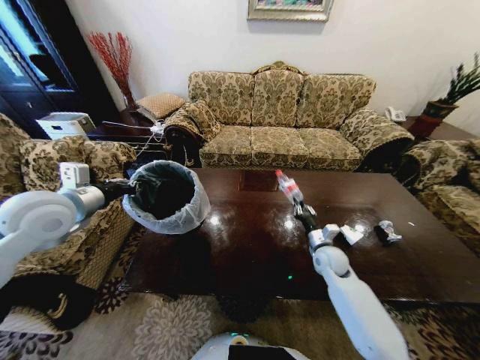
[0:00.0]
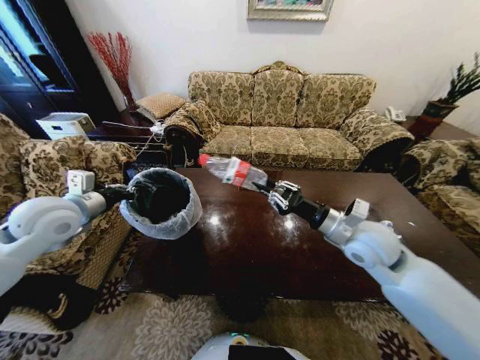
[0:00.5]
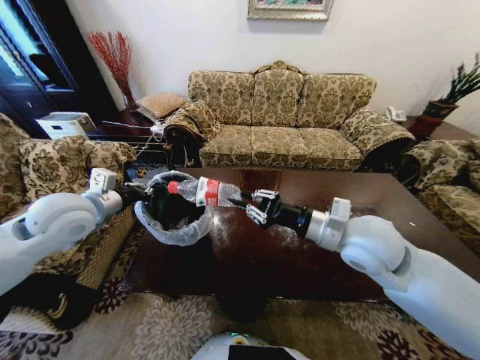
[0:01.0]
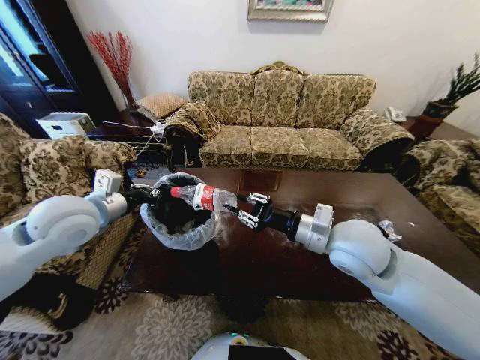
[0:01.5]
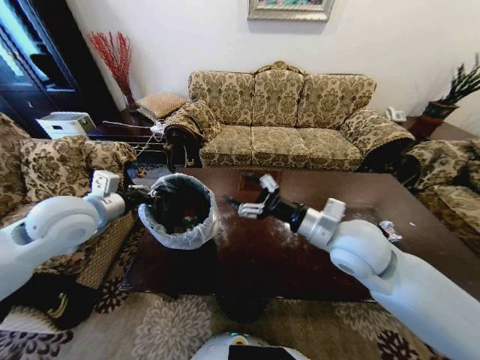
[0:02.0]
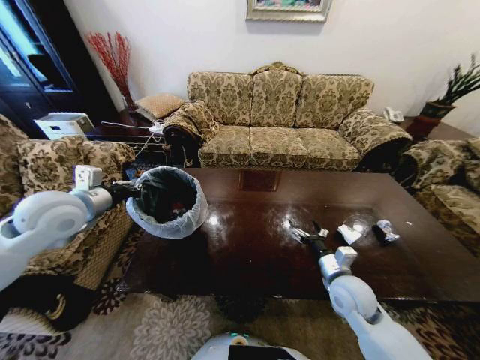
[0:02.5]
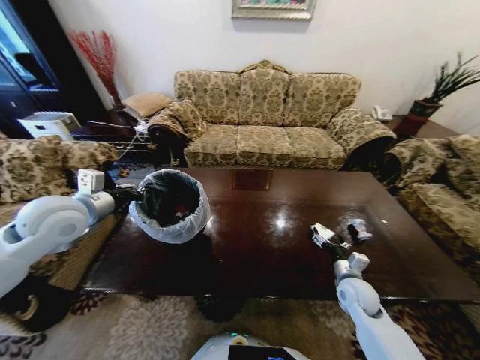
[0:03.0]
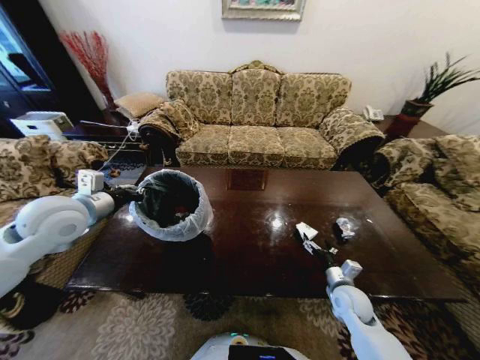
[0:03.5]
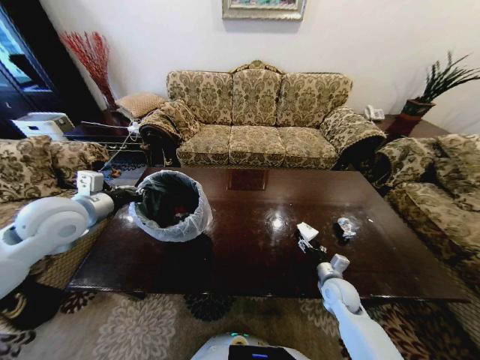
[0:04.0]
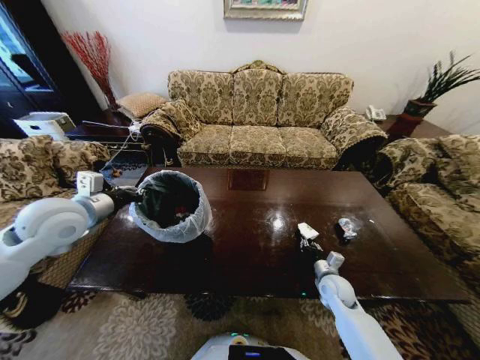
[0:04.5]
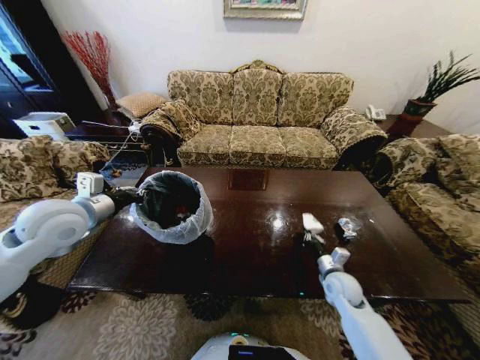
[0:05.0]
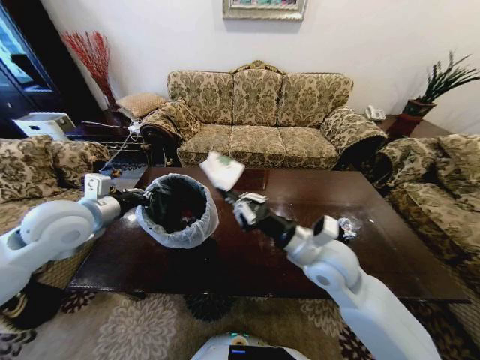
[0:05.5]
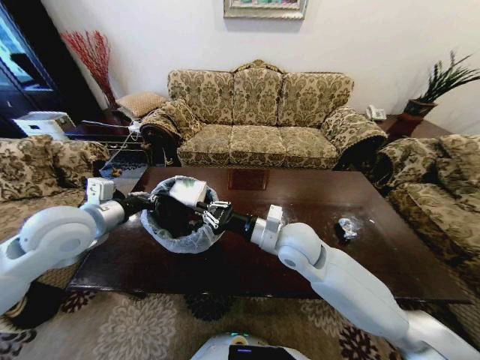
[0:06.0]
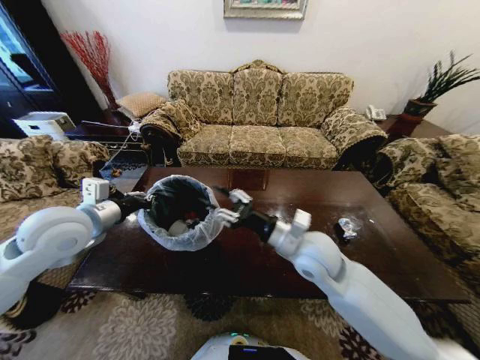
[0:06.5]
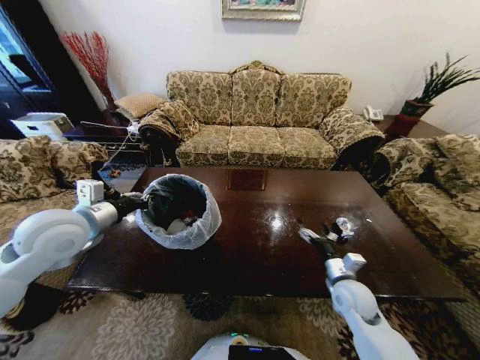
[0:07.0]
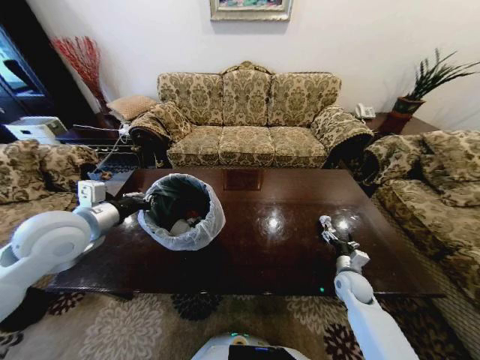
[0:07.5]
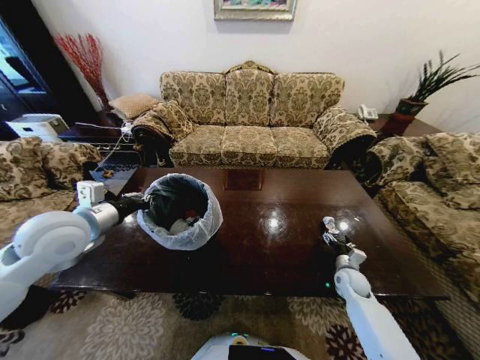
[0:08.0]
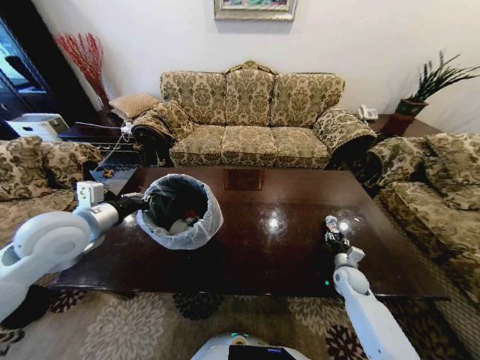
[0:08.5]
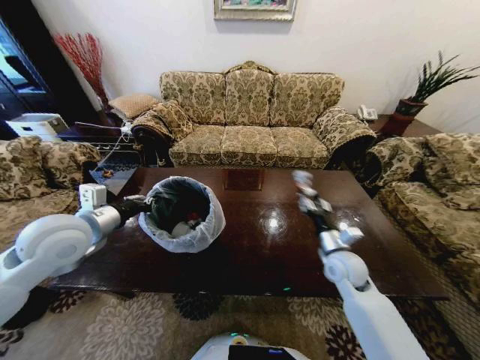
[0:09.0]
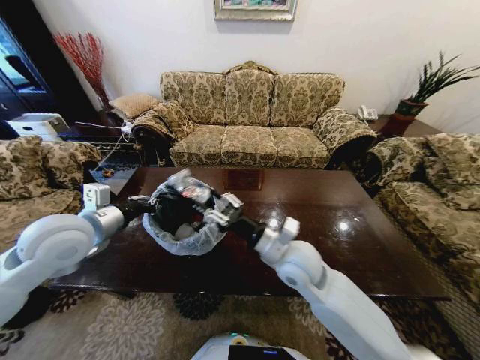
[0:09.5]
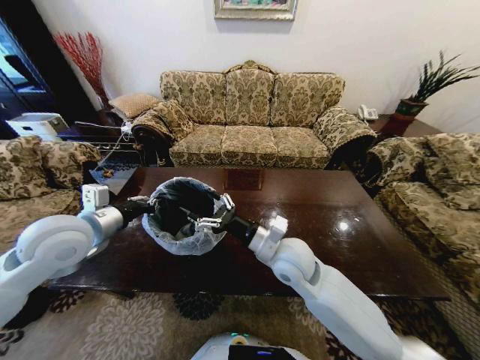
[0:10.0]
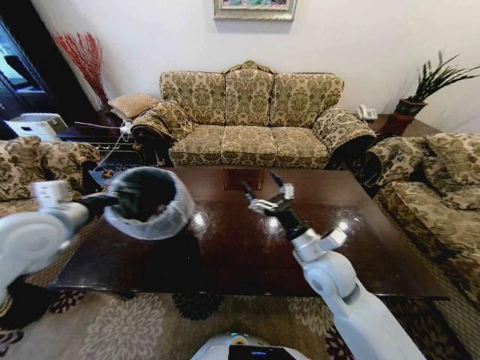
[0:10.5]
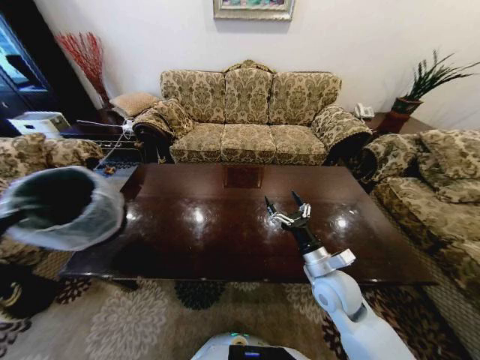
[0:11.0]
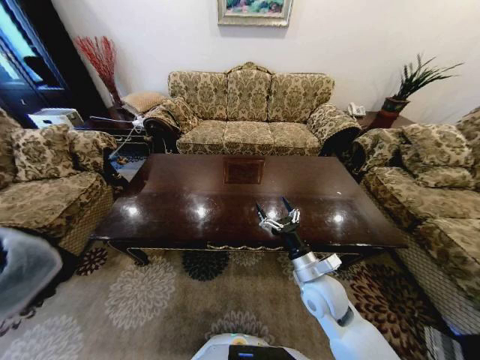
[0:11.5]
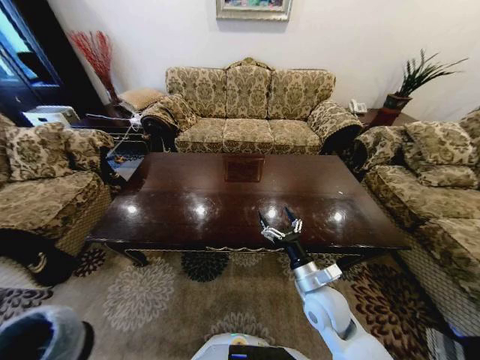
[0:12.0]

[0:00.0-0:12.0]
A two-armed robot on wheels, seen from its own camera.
Task of the whole recording: Move to the front of the table and place the trash on the table into the trash bin.
0:00.0 to 0:02.0: The right gripper moves upward, roughly 25 cm, and opens its fingers.
0:02.0 to 0:04.0: The right gripper goes some 30 cm downward.
0:04.0 to 0:06.0: The right gripper travels upward and to the left by some 30 cm, and closes its fingers.
0:06.0 to 0:08.0: The right gripper is displaced downward and to the right by about 40 cm, and opens its fingers.
0:08.0 to 0:10.0: The right gripper travels to the left and upward by approximately 40 cm, and closes, then opens again.
0:10.0 to 0:12.0: The left gripper moves downward, backward and to the left, approximately 50 cm, while the right gripper moves downward, to the right and backward, approximately 15 cm.

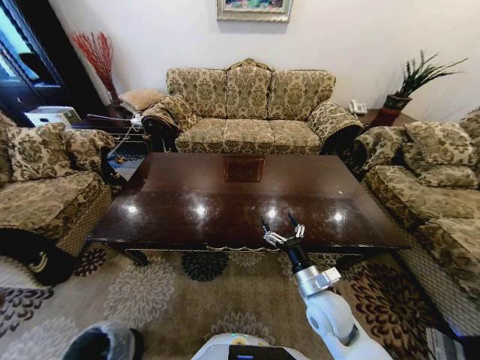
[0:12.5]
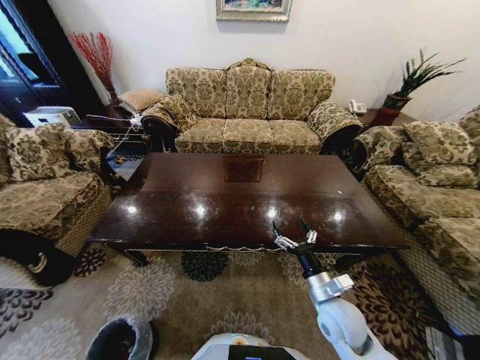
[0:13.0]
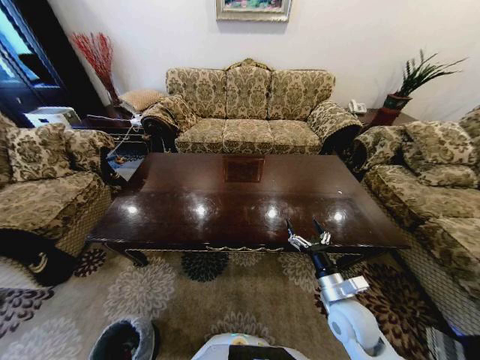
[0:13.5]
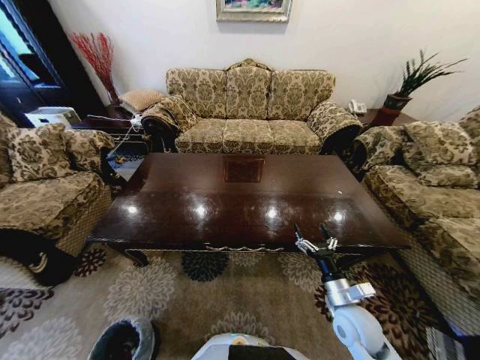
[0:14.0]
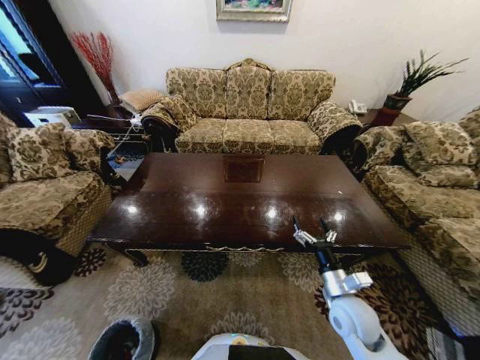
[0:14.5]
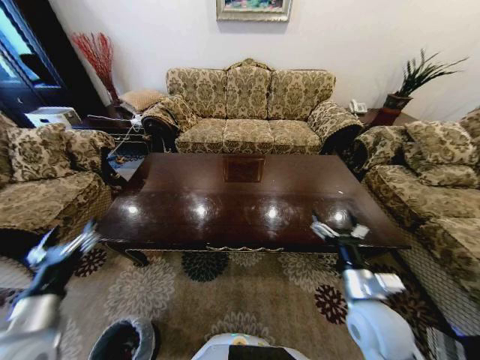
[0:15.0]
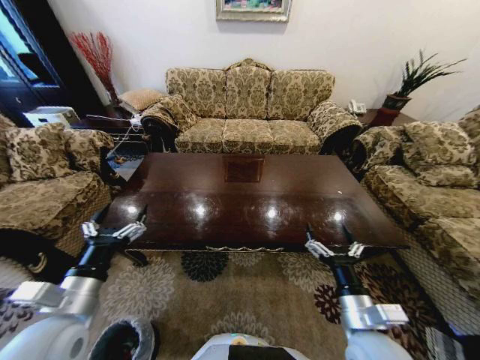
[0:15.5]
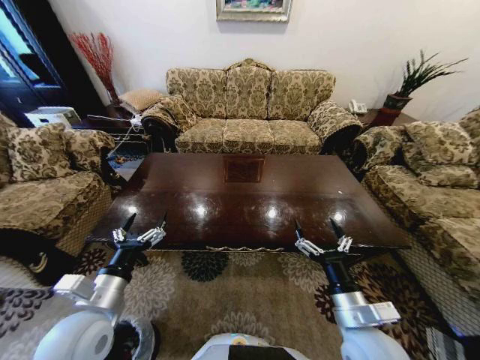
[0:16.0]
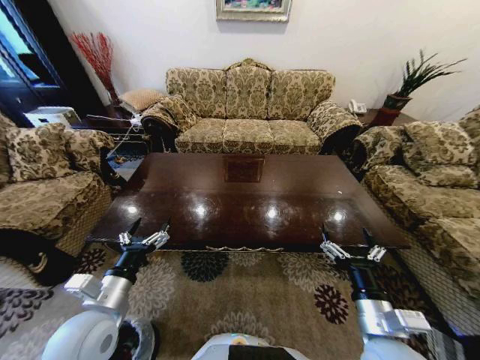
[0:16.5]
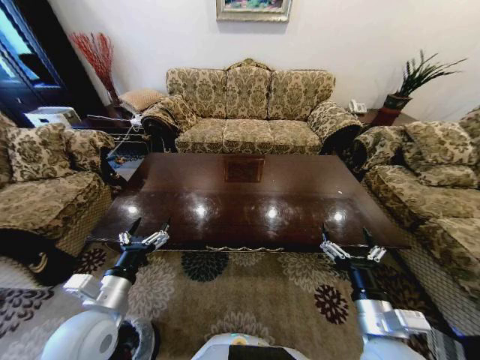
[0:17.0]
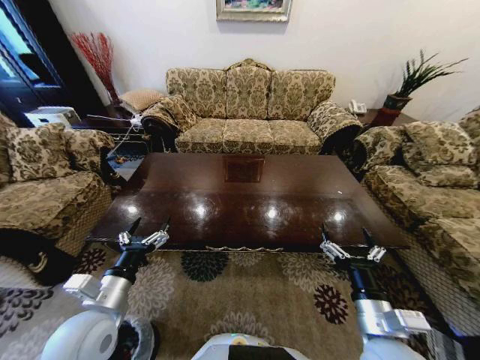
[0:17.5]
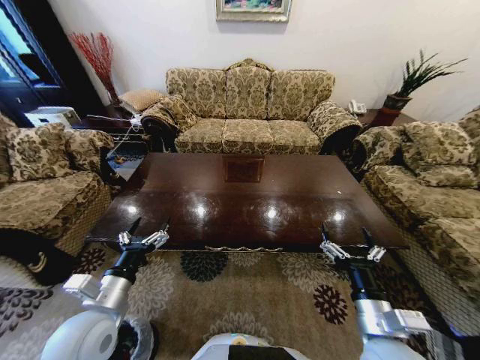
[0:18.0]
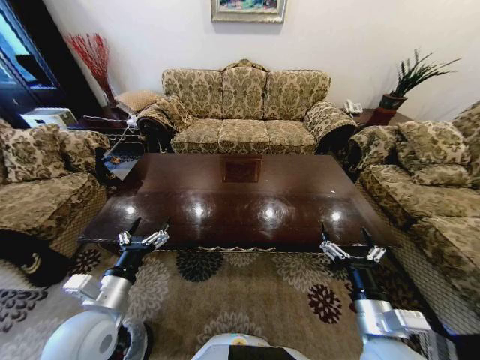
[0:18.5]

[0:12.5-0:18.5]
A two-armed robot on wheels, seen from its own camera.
Task of the whole recording: Move to the front of the table and place the trash on the table into the trash bin.
0:12.5 to 0:14.5: The left gripper shifts some 10 cm backward, and opens its fingers. Meanwhile the right gripper heads to the right, covering approximately 5 cm.
0:14.5 to 0:16.5: The left gripper moves upward and forward, approximately 40 cm, while the right gripper goes about 10 cm backward and upward.
0:16.5 to 0:18.5: The two grippers keep their place.
